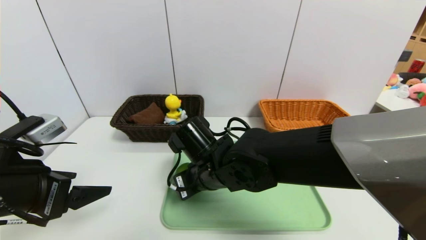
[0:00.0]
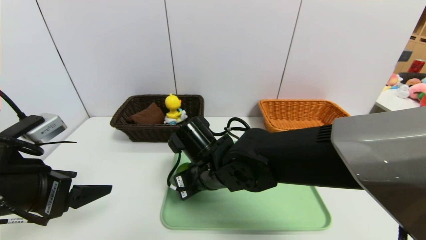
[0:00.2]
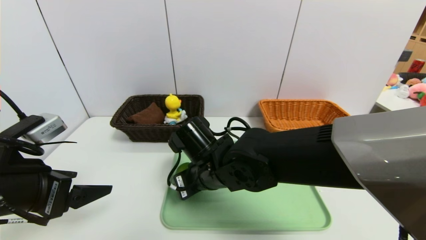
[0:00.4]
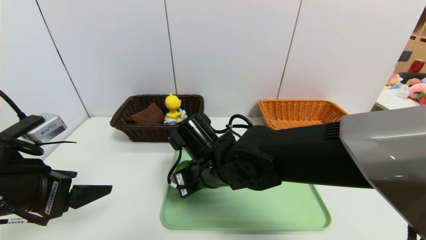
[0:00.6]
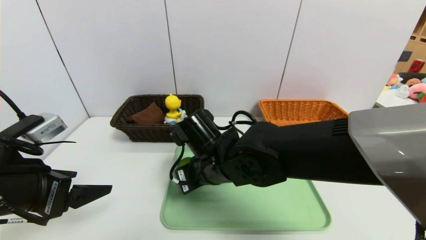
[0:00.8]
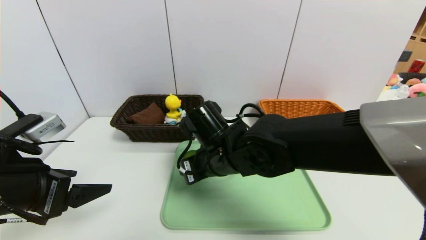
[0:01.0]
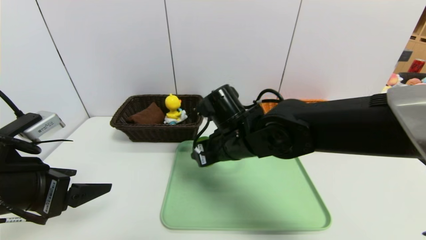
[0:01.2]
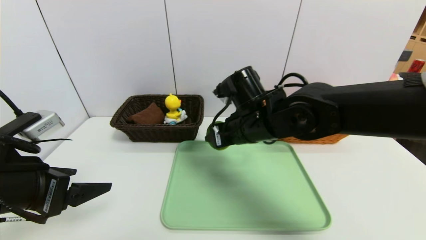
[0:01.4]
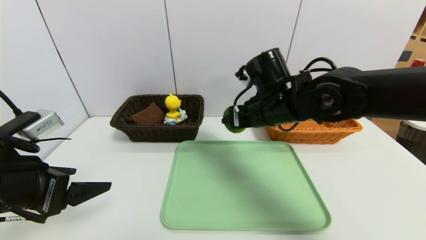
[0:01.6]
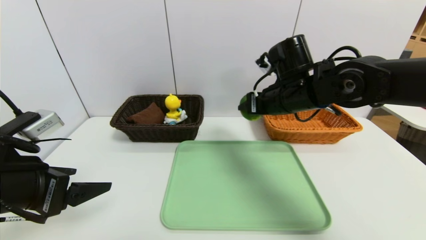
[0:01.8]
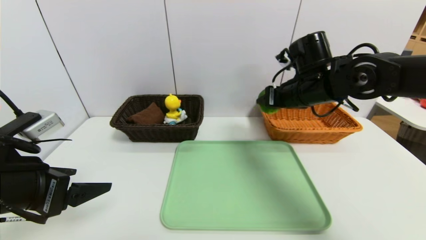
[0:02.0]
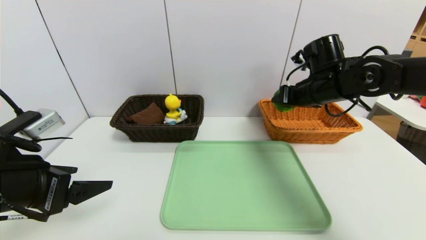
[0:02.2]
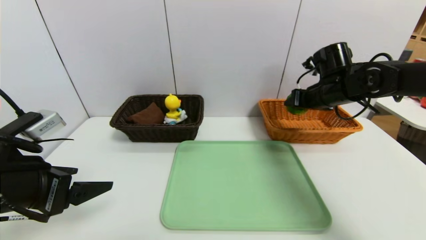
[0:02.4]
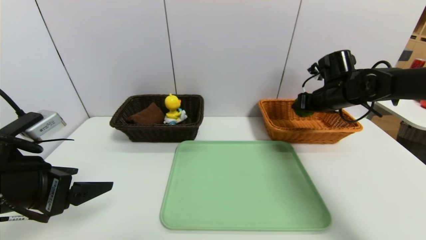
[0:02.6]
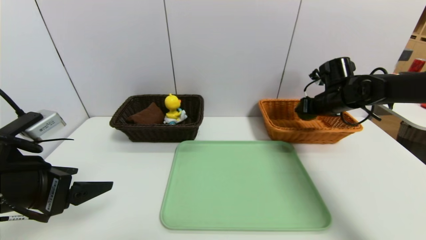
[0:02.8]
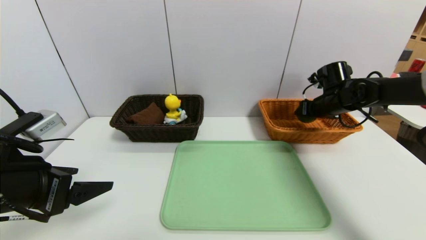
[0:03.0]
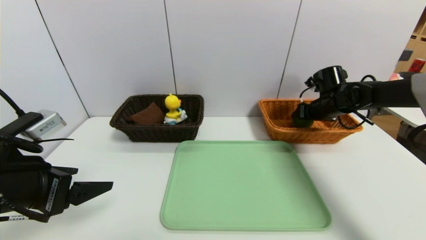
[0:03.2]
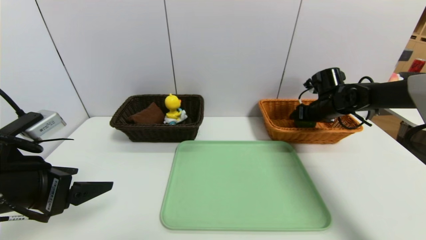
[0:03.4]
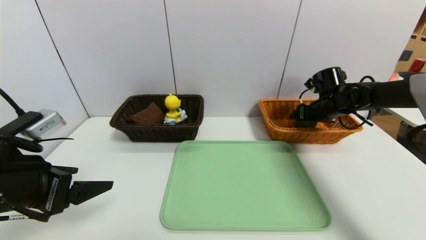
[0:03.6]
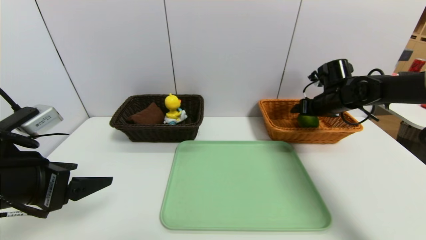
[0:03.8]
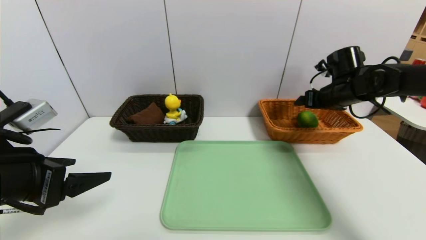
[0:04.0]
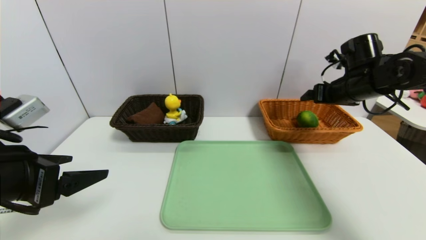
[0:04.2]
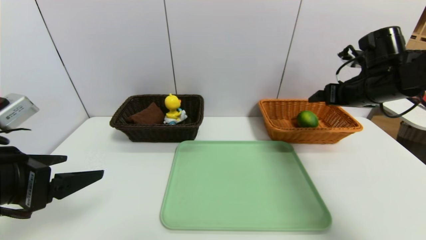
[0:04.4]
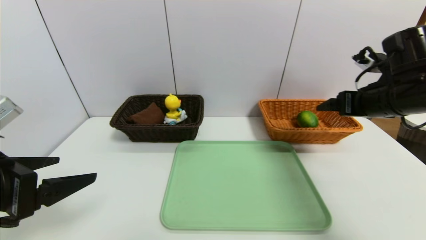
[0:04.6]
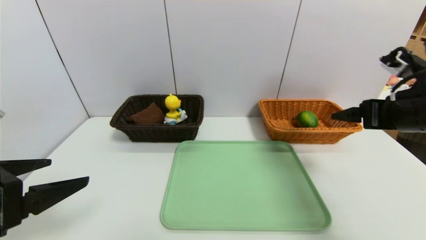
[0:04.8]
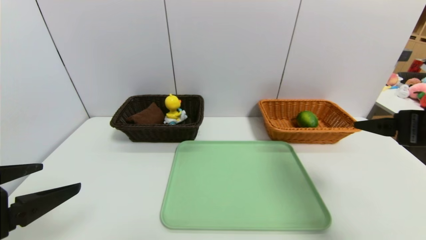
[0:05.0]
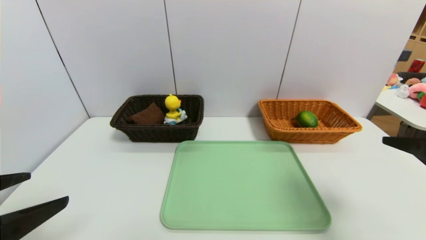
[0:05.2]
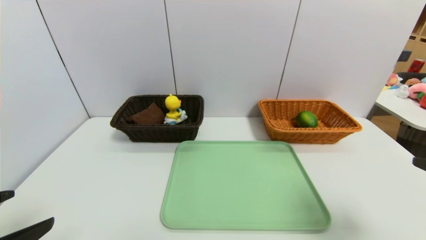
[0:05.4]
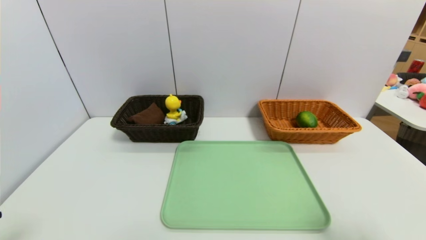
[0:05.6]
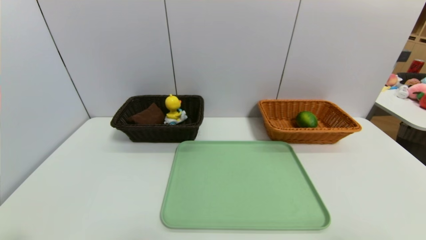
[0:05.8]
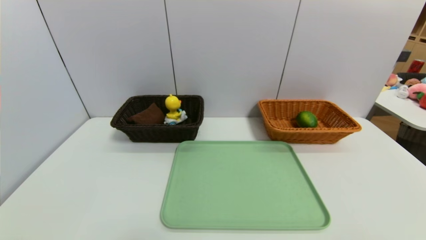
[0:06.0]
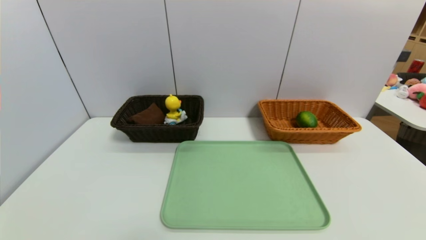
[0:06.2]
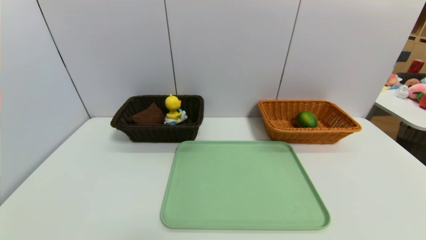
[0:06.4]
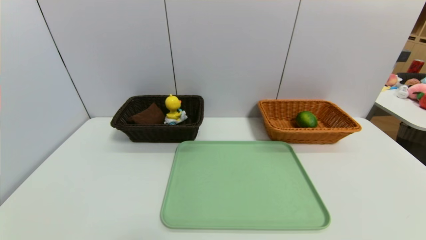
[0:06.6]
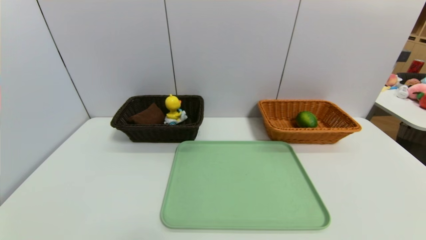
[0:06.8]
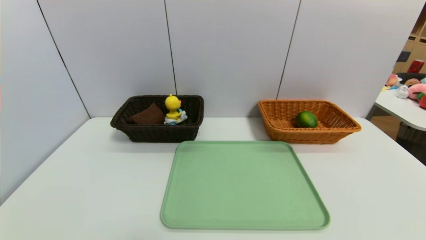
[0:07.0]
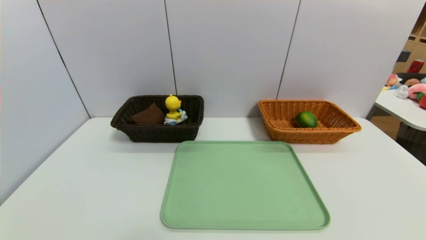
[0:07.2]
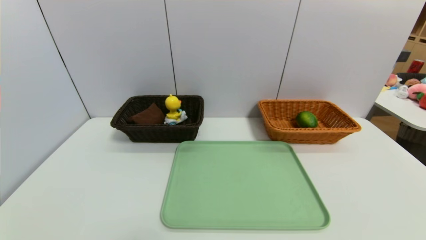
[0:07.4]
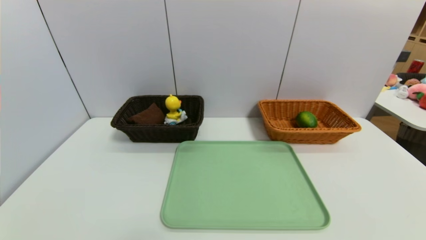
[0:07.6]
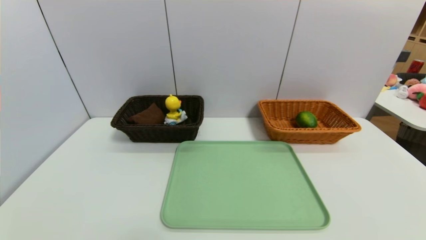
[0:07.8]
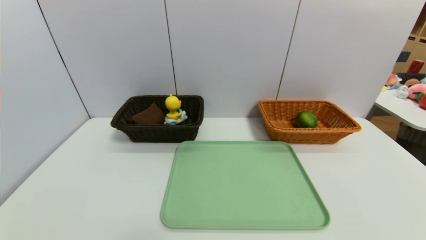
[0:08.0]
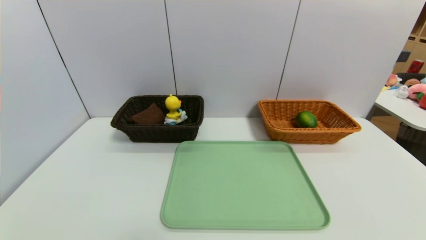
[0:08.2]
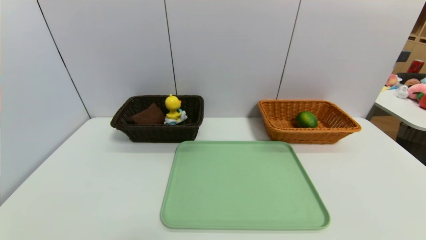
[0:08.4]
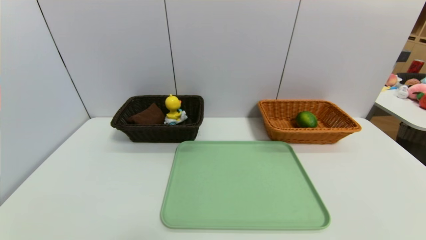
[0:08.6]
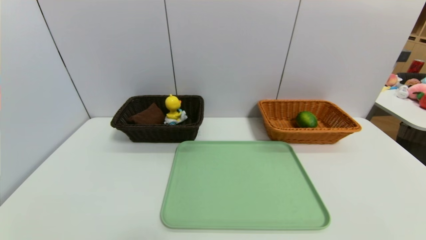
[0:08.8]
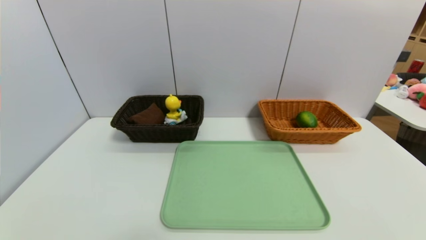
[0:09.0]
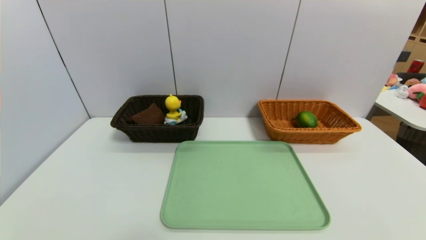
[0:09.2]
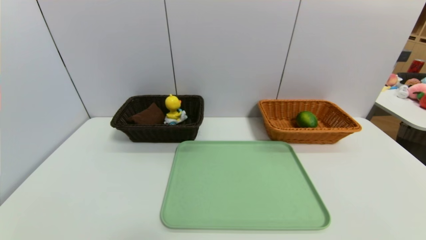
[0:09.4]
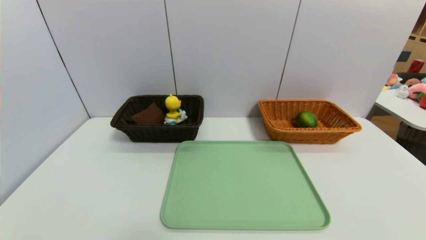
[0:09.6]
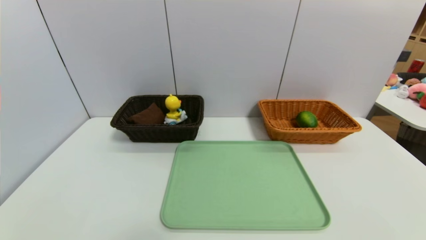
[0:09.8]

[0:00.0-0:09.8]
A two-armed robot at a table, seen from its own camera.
Task of the whole recording: place the food in the right basket with the right gripper, and place the non food items in the left basket with the left gripper.
Step, 0:00.0 to 0:03.8: Grasp the lemon and put it in the right basket.
0:00.0 to 0:01.4: The right gripper shifts some 10 cm to the right and upward.
0:01.4 to 0:02.8: The right gripper heads to the right and forward, covering some 25 cm.
0:02.8 to 0:04.2: The right gripper moves upward, some 5 cm, and opens up.
0:04.2 to 0:05.6: The right gripper shifts about 35 cm backward; the left gripper heads backward, covering approximately 10 cm.
